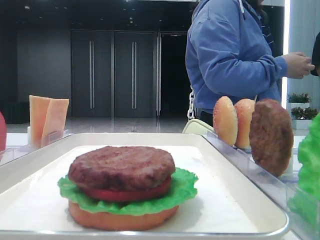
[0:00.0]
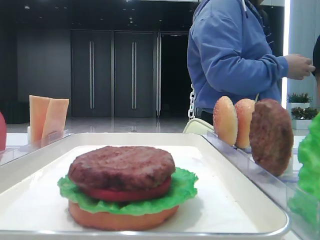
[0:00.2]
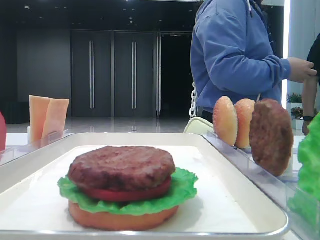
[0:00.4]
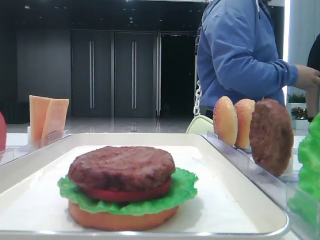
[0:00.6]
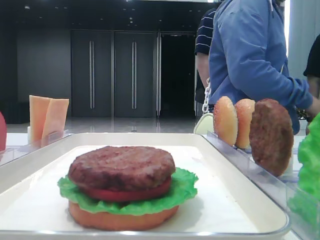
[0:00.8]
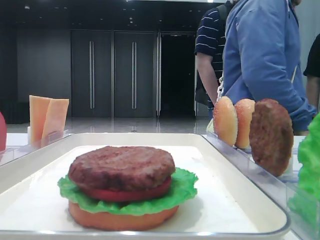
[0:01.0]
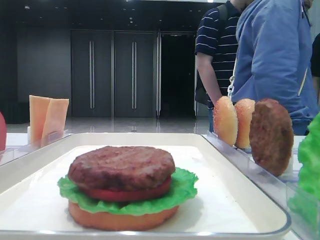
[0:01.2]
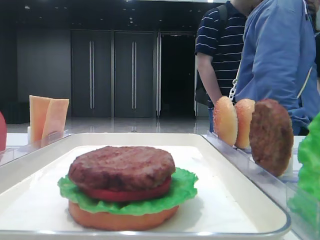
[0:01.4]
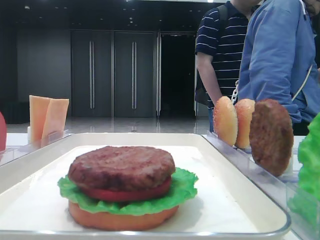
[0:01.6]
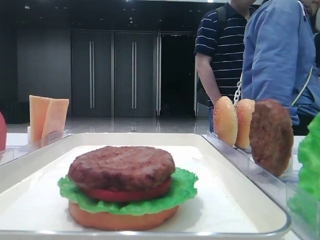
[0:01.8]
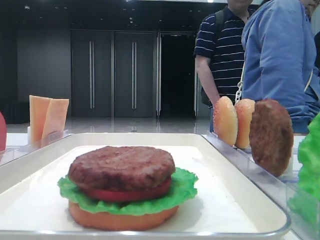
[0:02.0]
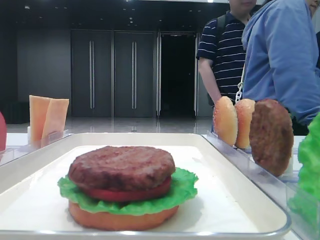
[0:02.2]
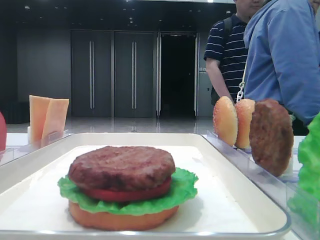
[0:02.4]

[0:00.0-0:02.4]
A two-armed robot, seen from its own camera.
0.0 to 1.2 s: The grippers stay close to where they were, moving slightly.
1.2 to 2.4 s: Both grippers stay put.

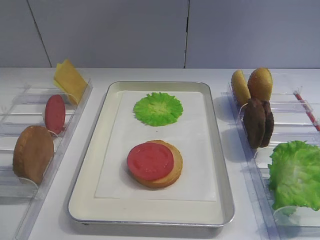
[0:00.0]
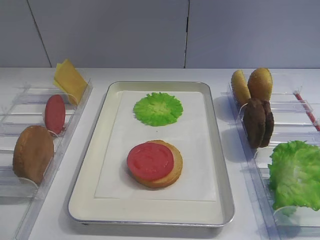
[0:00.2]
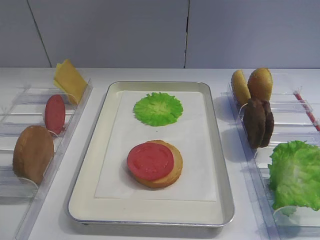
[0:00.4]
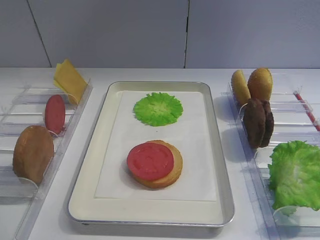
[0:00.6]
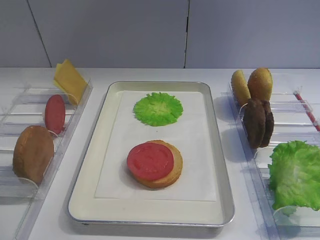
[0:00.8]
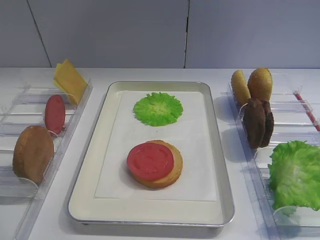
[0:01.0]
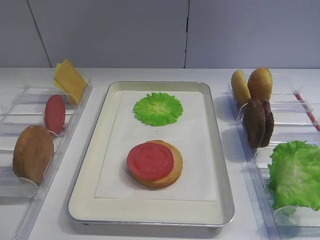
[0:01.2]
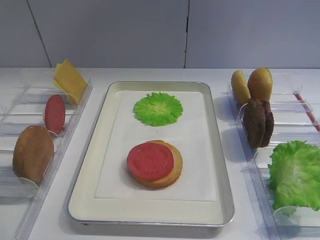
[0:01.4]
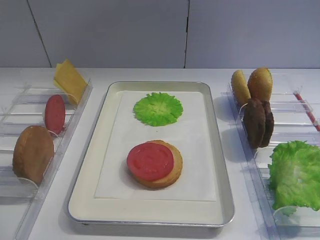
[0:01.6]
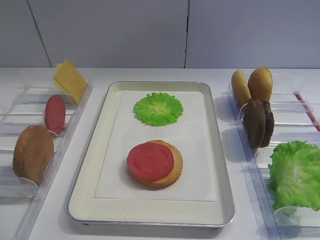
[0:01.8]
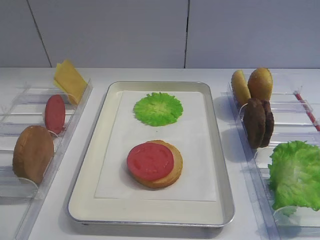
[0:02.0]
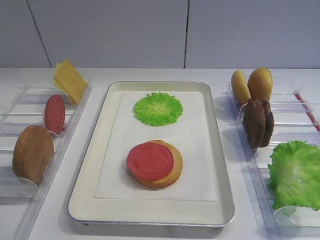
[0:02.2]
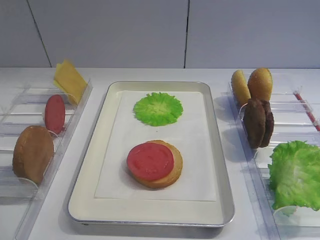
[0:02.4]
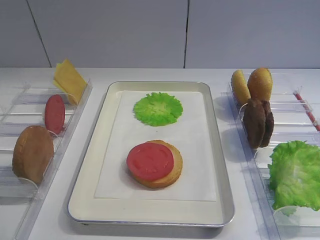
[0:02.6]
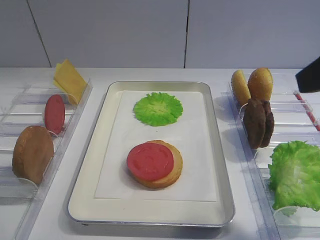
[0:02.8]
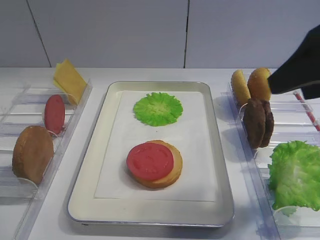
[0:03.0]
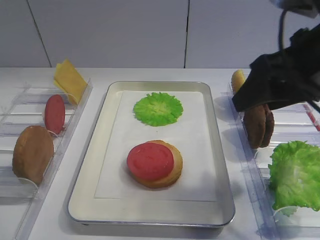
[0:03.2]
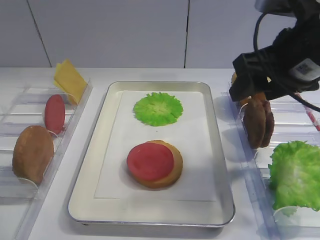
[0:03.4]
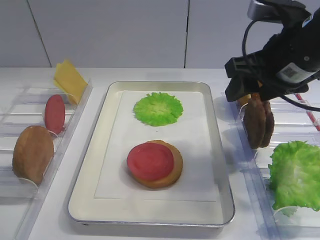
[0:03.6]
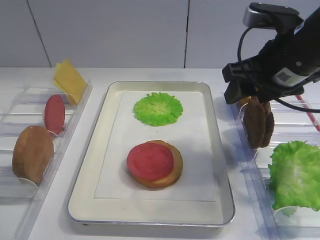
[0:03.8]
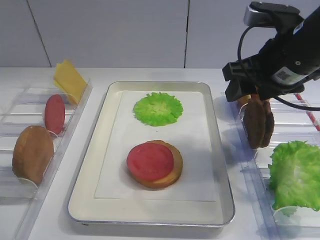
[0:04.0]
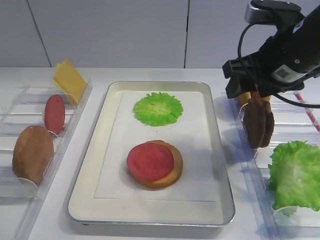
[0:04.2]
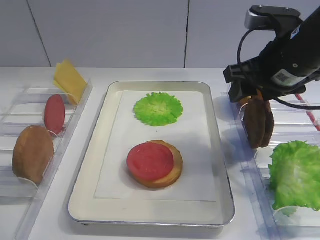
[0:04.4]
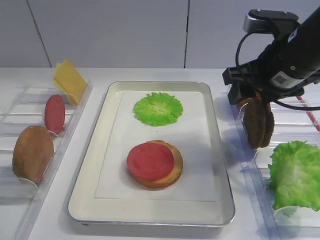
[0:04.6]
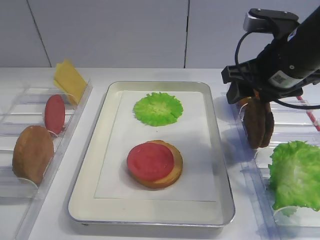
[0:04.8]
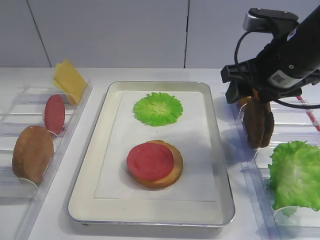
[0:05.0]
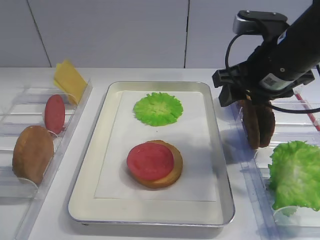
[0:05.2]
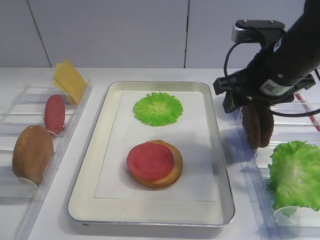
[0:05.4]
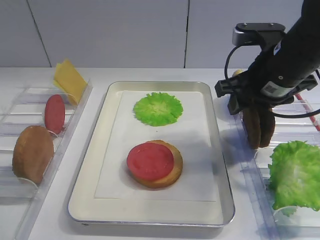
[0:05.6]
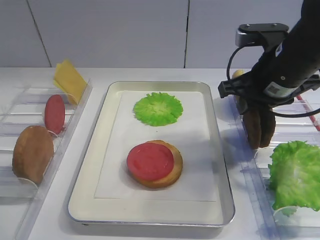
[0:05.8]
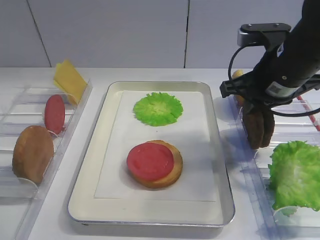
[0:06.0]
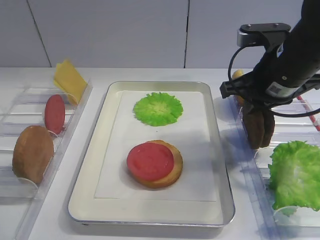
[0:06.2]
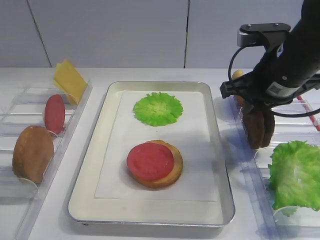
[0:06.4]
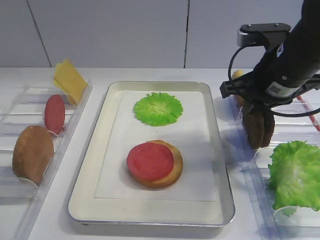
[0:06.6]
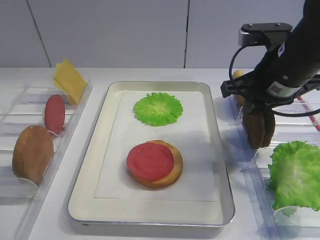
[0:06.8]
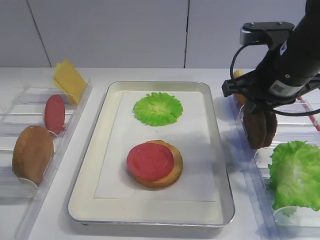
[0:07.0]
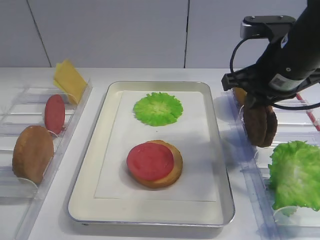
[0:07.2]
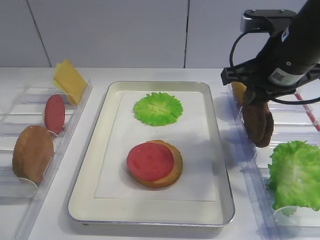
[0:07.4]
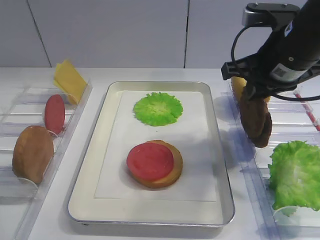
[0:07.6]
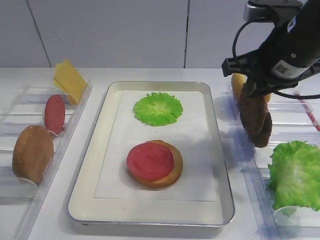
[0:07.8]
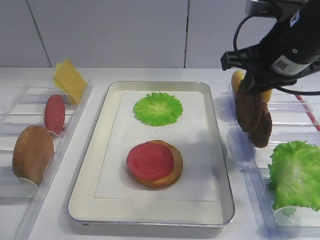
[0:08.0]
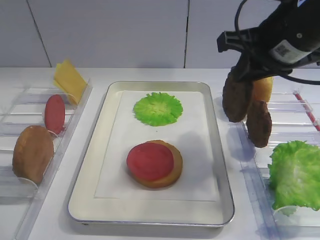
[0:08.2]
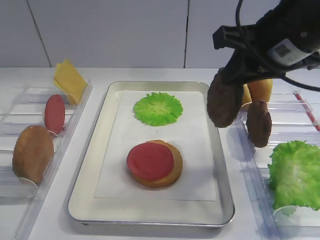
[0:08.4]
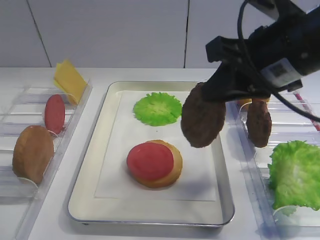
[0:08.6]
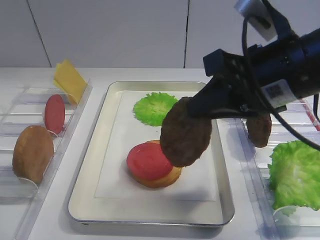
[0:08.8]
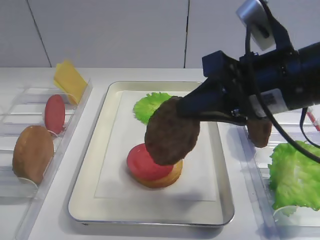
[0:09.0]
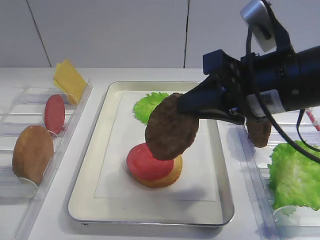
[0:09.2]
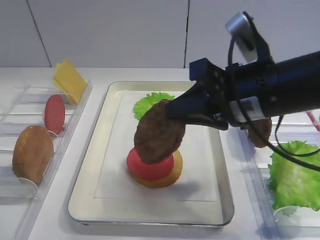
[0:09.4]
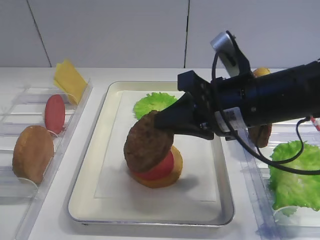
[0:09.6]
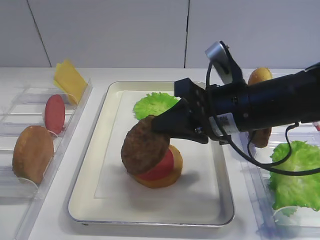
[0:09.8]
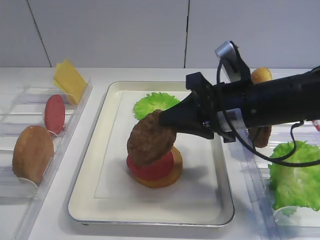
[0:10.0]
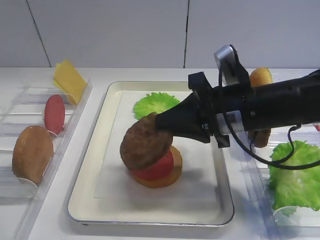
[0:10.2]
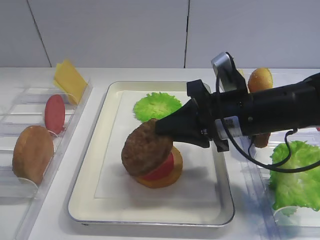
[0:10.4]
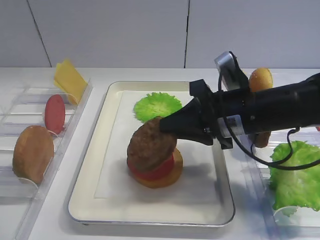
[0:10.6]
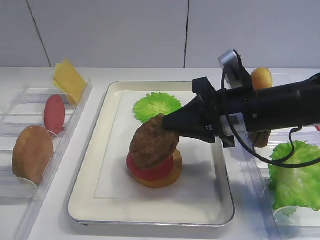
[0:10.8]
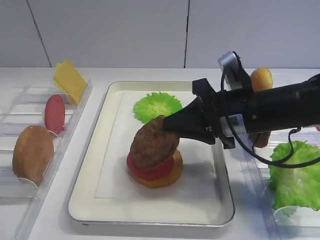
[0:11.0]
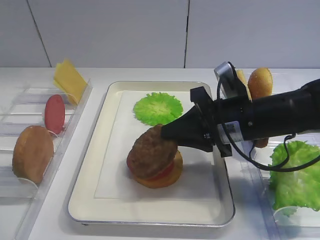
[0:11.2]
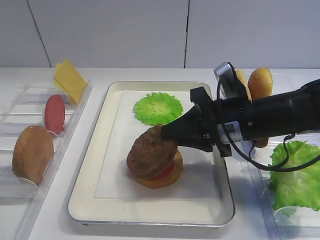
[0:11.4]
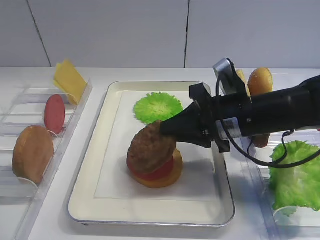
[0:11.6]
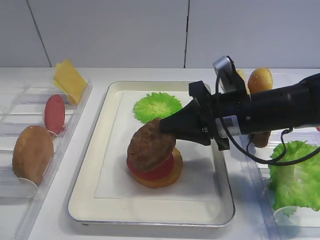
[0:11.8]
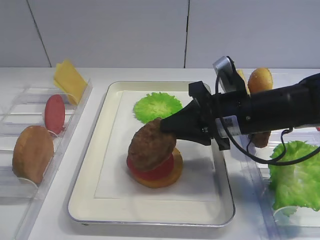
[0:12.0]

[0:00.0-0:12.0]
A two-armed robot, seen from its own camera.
Step, 0.0 to 8.0 s: Pick up the cutlet with the right gripper.
1.6 to 3.0 s: The right gripper travels forward by about 20 cm.
3.0 to 4.4 s: The right gripper goes approximately 10 cm forward and downward.
4.4 to 6.0 s: The right gripper closes.
6.0 to 7.6 s: The grippers make only small movements.
7.6 to 9.0 s: The right gripper goes roughly 10 cm backward.
9.0 to 10.4 s: The right gripper moves downward, about 10 cm.
10.4 to 12.0 s: There are only small adjustments of the grippers.

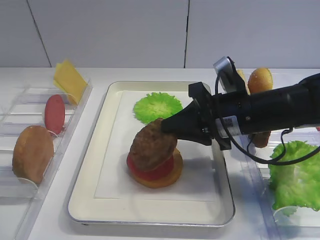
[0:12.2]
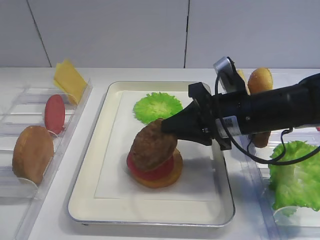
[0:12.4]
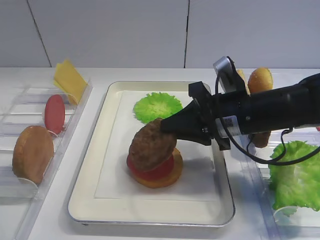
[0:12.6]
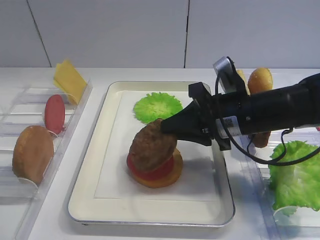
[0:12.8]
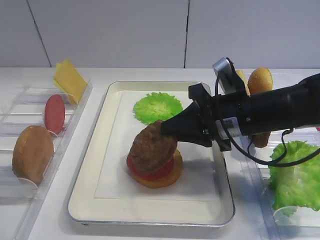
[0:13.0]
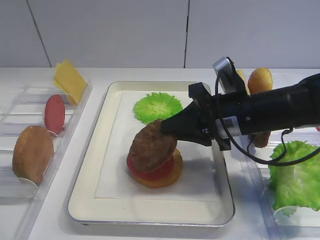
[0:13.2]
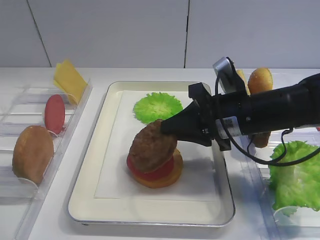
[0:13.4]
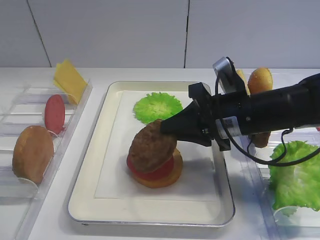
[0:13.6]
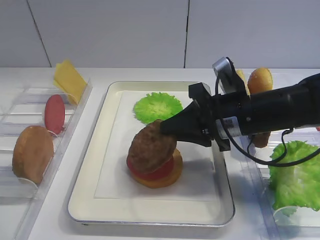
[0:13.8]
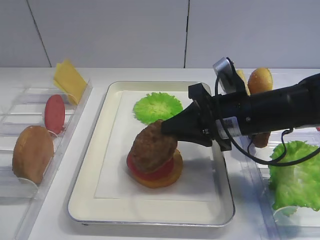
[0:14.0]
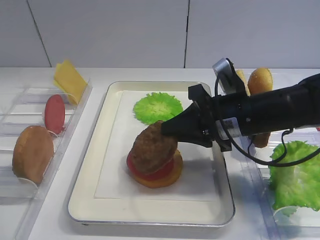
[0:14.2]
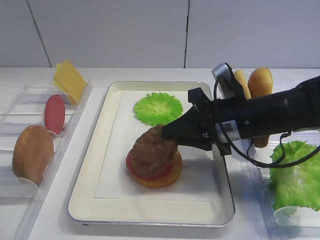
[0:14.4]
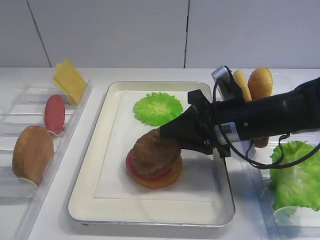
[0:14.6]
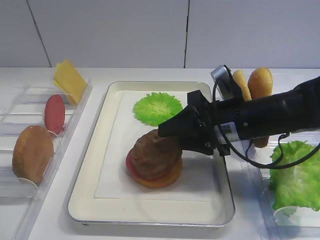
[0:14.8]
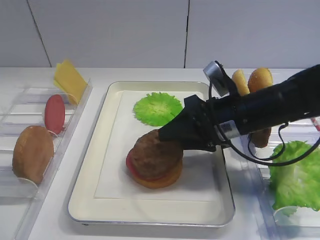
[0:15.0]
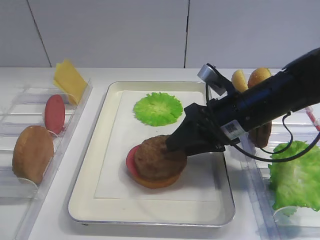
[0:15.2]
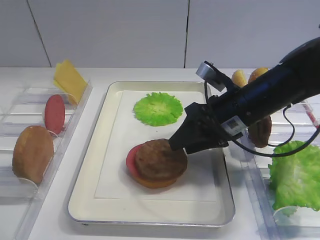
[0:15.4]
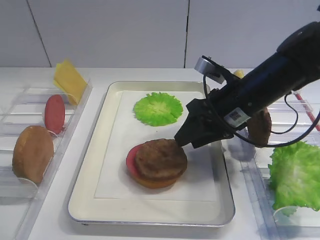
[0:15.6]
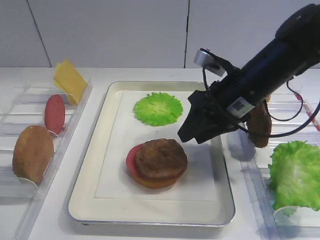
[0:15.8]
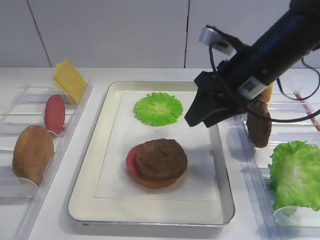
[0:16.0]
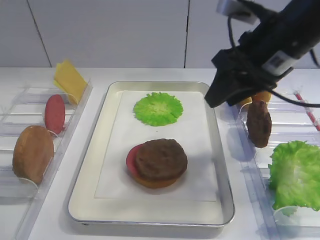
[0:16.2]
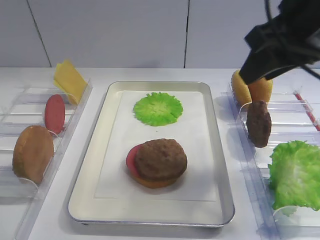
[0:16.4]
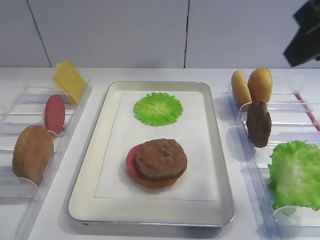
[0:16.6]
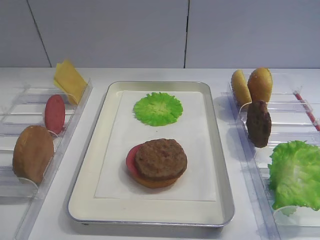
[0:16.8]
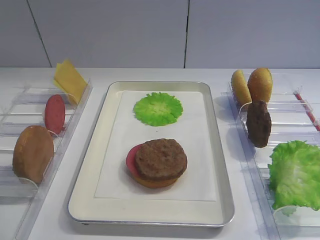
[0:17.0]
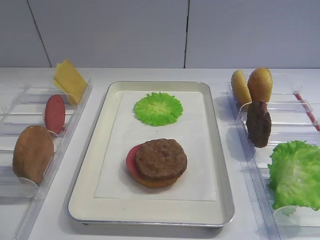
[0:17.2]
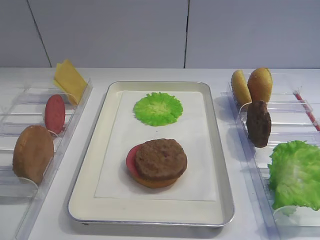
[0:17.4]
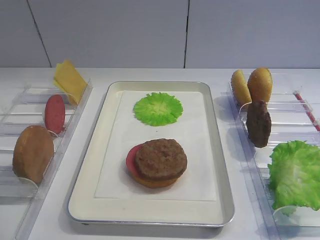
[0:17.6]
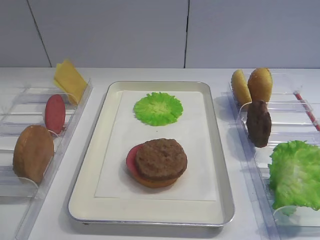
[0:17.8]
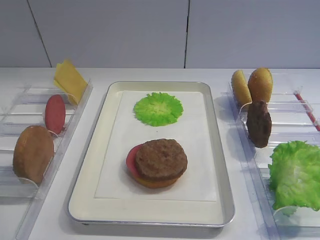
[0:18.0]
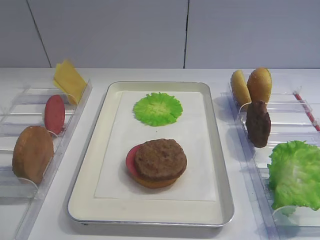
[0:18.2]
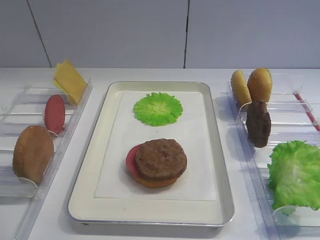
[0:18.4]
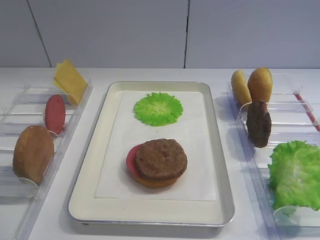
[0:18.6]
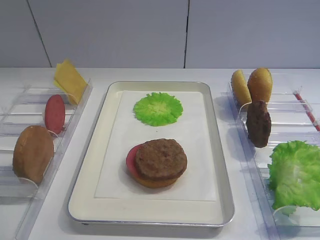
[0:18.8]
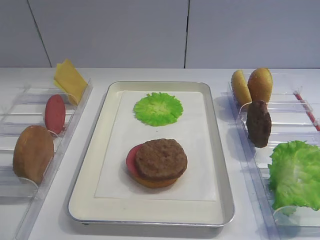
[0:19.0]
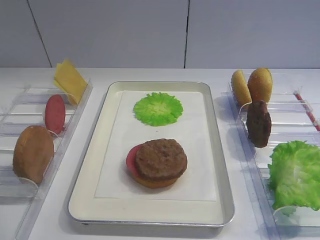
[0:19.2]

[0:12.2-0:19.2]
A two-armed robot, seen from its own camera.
Step, 12.2 to 16.2 s: Place the cutlet on the tomato slice with the right gripper.
12.2 to 13.6 s: The two grippers keep their place.
13.6 to 15.0 s: The right gripper opens.
15.0 to 16.4 s: The right gripper shifts some 20 cm upward.
16.4 to 17.8 s: The right gripper goes some 25 cm backward.

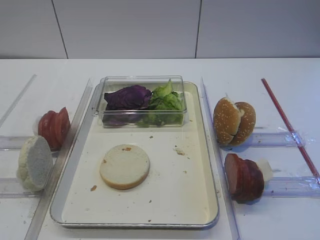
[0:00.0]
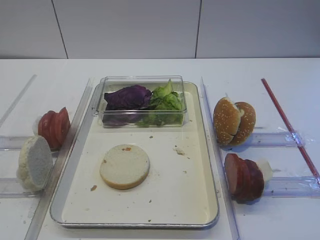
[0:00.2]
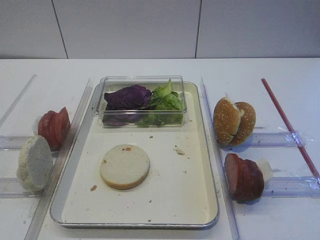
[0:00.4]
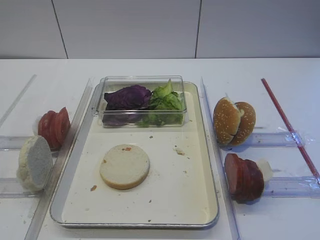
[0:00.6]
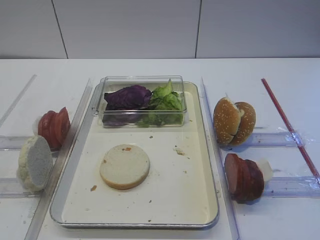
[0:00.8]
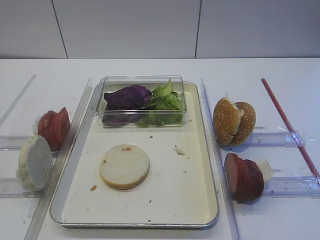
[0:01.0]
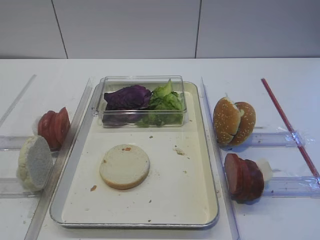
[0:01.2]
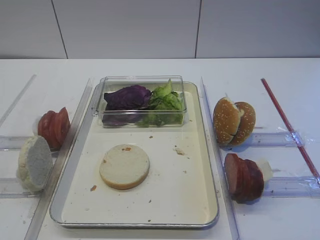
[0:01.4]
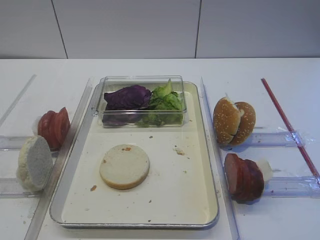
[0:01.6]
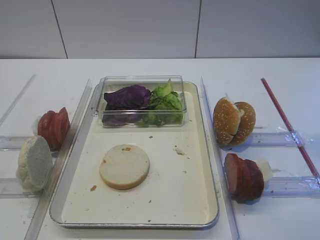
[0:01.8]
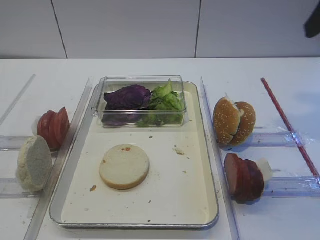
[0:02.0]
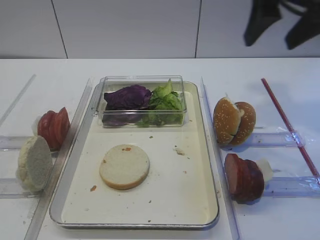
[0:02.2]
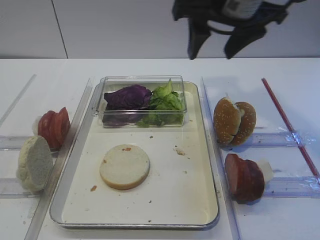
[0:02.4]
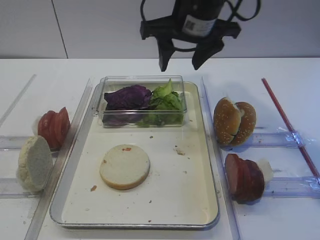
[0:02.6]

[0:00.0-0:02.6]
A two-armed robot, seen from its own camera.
1.2 to 2.6 s: The right gripper is displaced forward and to the left by about 40 cm.
